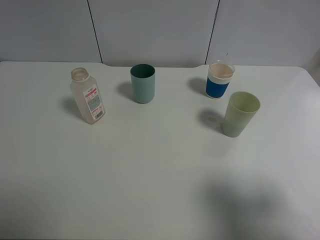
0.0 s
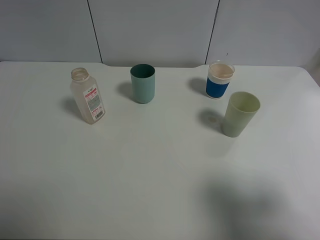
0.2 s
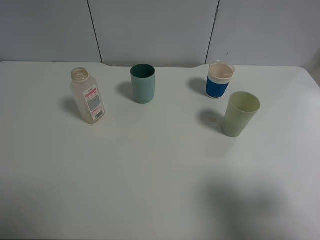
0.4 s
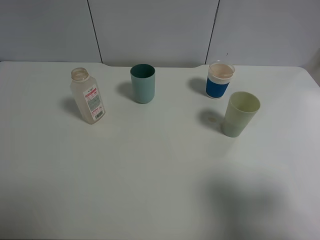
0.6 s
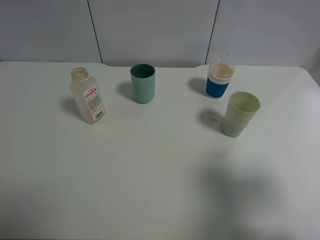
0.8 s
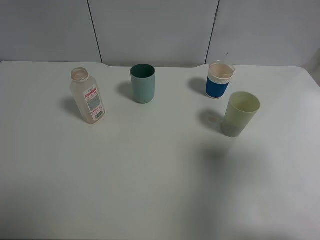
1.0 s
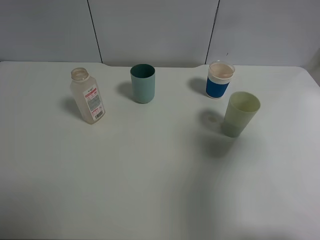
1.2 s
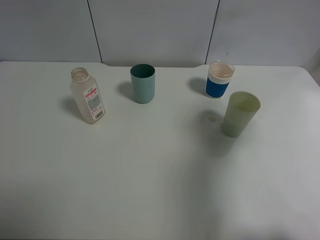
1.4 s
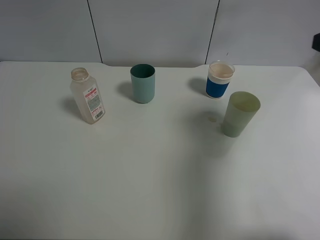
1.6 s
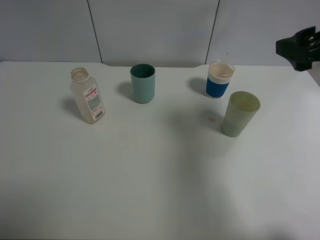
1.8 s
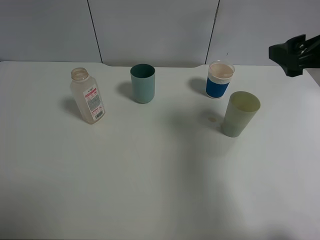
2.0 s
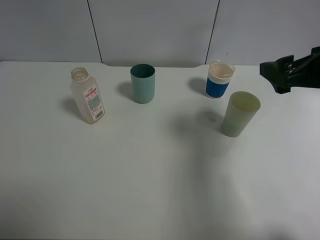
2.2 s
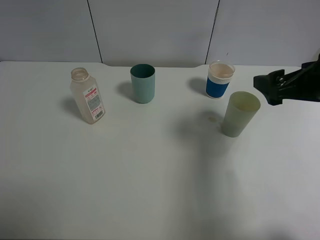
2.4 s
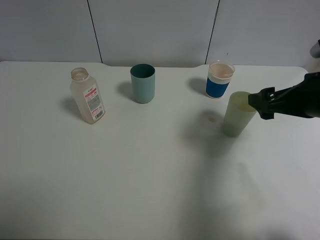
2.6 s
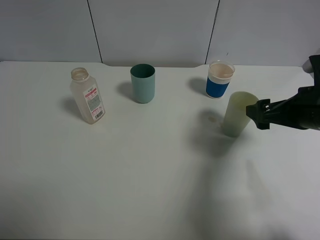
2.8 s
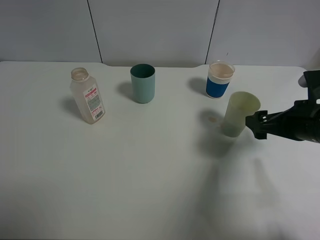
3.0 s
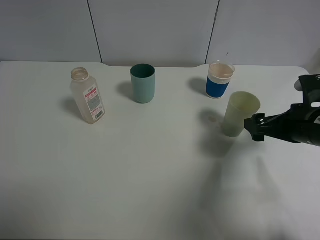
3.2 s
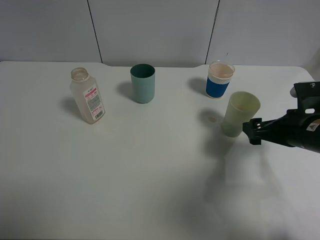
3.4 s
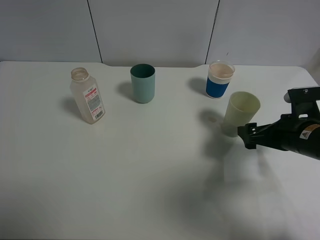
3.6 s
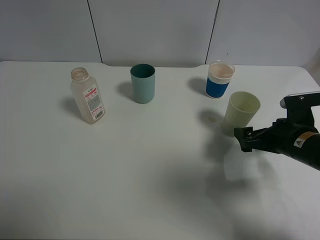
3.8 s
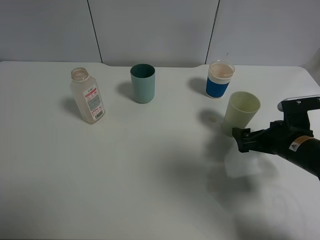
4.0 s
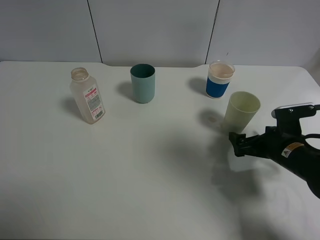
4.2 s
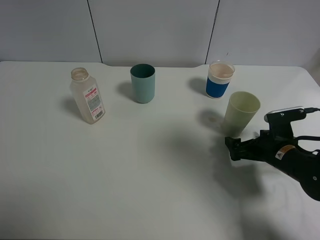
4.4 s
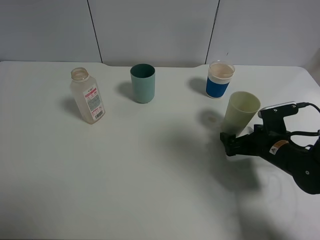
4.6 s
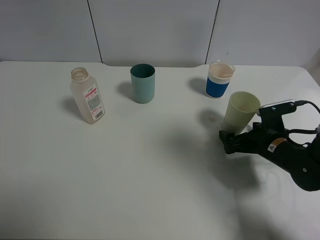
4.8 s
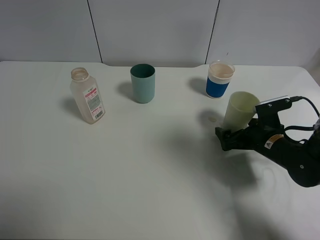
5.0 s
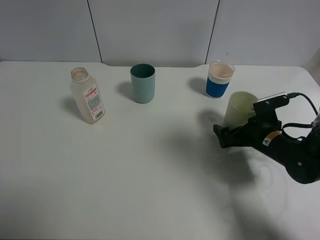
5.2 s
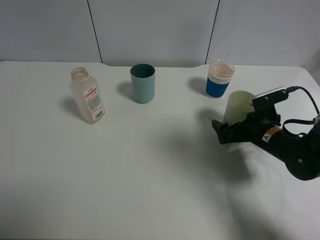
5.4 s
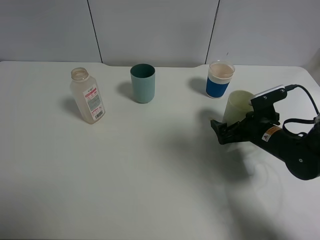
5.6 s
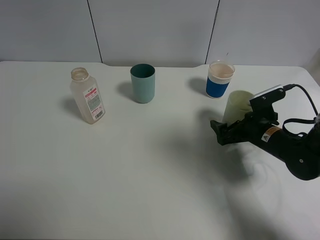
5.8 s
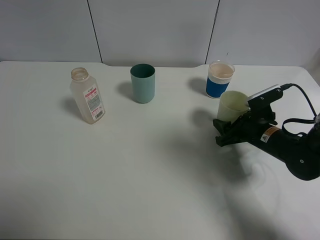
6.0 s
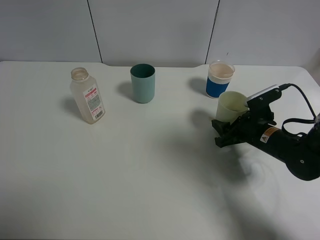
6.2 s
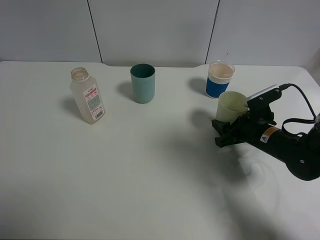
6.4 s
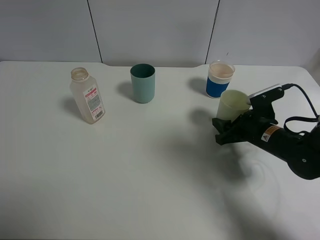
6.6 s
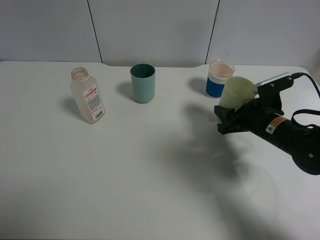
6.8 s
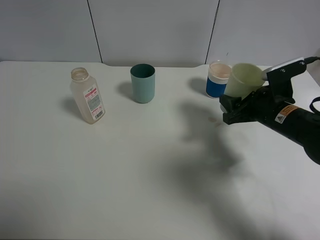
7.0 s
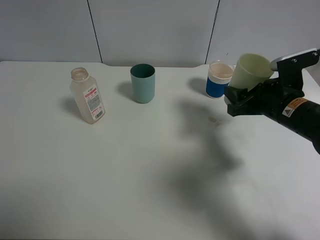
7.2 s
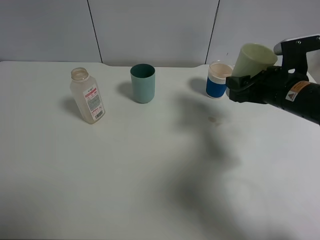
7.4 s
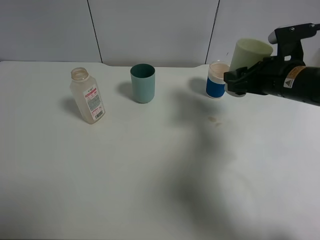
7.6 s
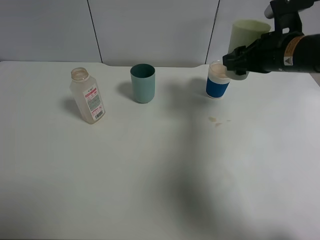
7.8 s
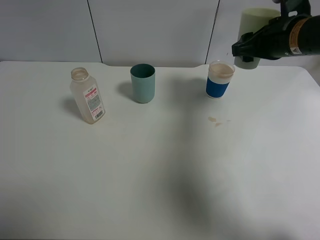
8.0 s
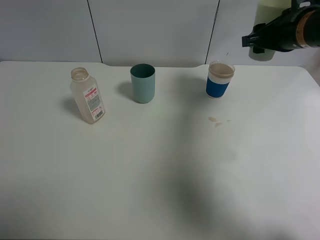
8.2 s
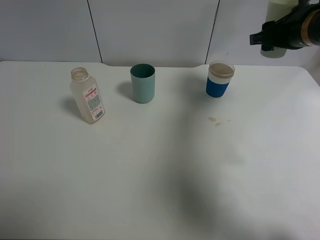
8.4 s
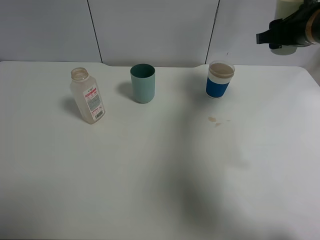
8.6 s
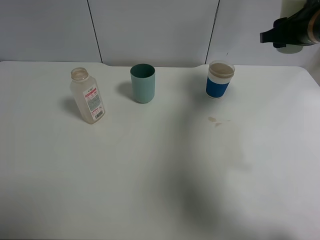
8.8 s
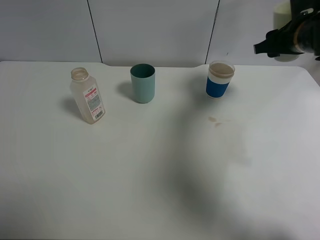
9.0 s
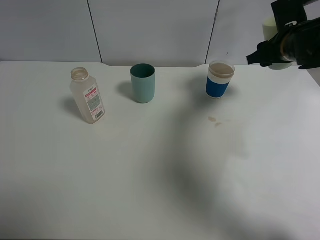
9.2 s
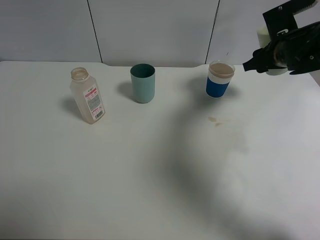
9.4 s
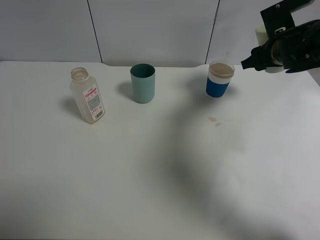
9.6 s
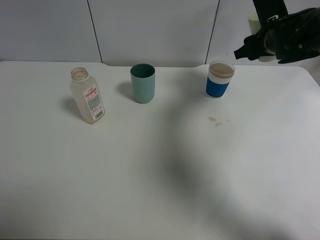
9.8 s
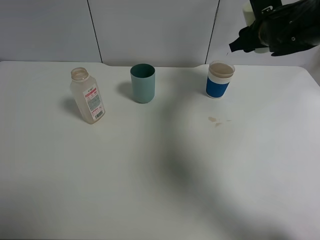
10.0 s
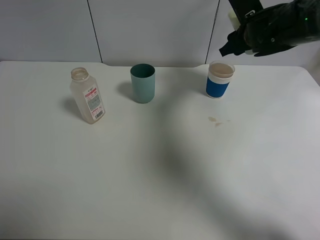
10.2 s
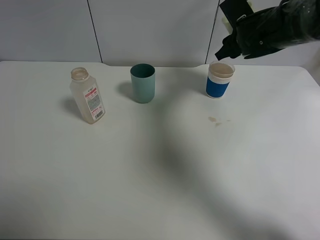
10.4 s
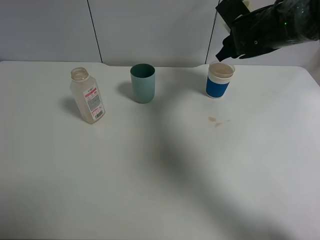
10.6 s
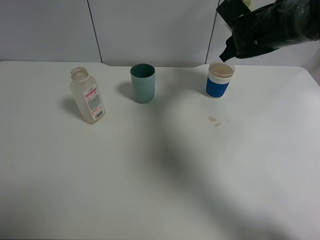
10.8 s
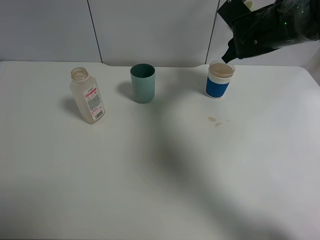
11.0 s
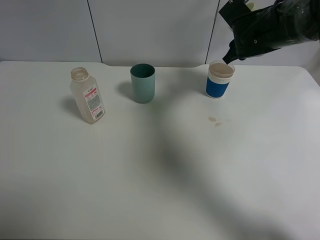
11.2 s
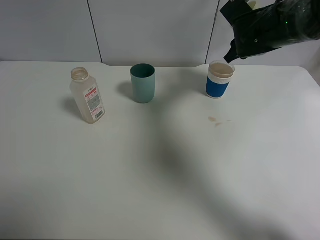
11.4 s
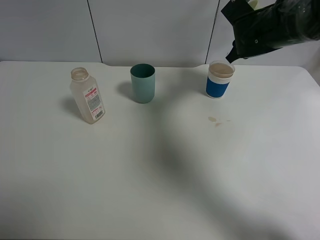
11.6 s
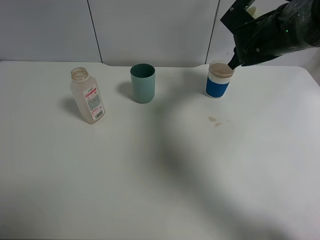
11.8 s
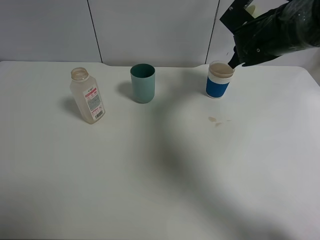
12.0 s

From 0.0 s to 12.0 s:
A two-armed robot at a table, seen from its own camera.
Task of the whole recording: use a clamp to hold the bottle of the drink, pour the beverage into a random cup, then clamp the cup containing the drink and pour the drink into another random cup.
Step, from 0.0 s to 7.0 s: Pick up the green plastic cup bottle with right gripper.
From 0.0 s to 1.6 s: The right gripper moves forward, about 20 cm.
From 1.6 s to 3.0 s: The right gripper heads downward, covering about 15 cm.
From 3.0 s to 4.4 s: The right gripper goes some 10 cm downward.
From 4.4 s to 6.0 s: The right gripper closes its fingers.
From 6.0 s to 7.6 s: The right gripper travels upward by approximately 15 cm.
From 7.6 s to 9.0 s: The right gripper travels forward and upward by roughly 10 cm.
From 9.0 s to 10.4 s: The right gripper travels to the left and forward by some 10 cm.
From 10.4 s to 12.0 s: The grippers make only small movements.

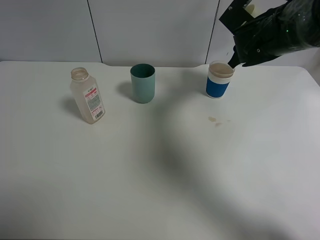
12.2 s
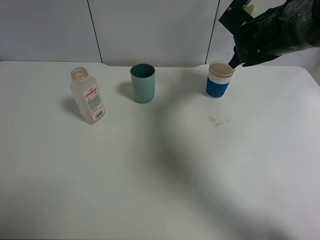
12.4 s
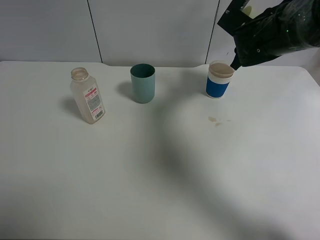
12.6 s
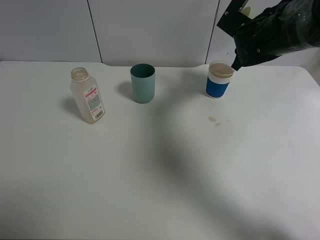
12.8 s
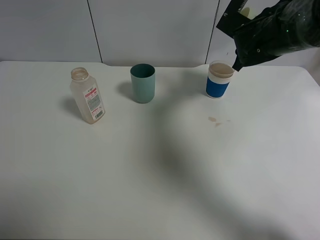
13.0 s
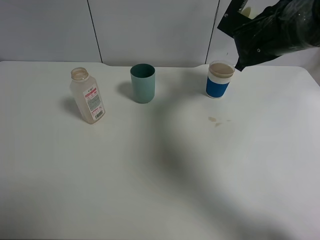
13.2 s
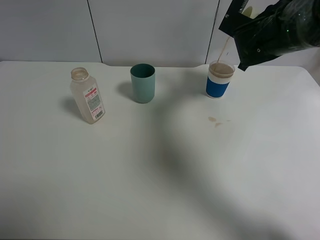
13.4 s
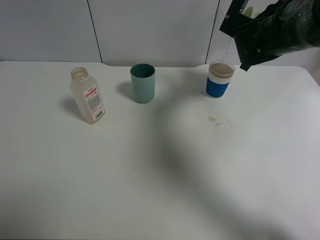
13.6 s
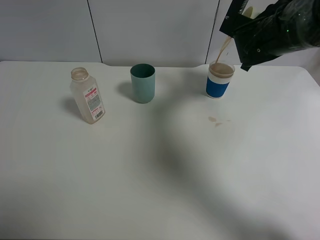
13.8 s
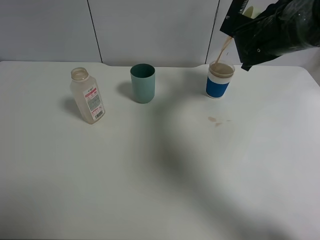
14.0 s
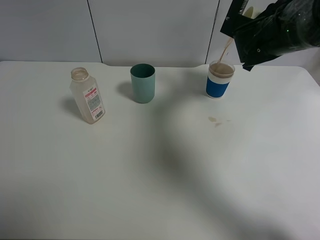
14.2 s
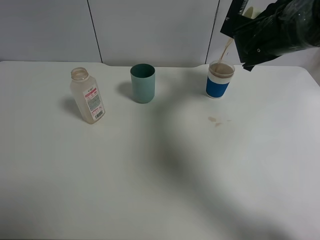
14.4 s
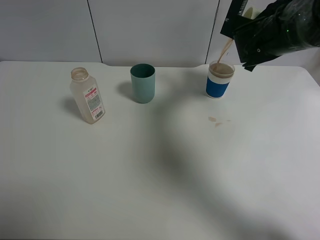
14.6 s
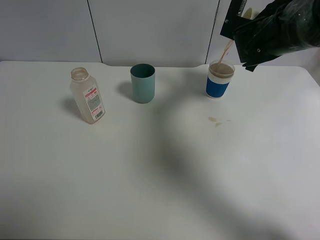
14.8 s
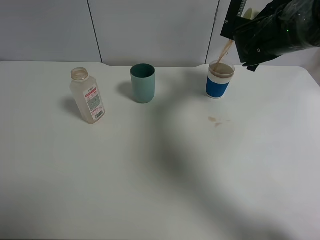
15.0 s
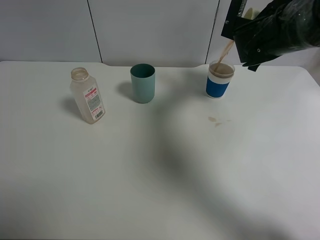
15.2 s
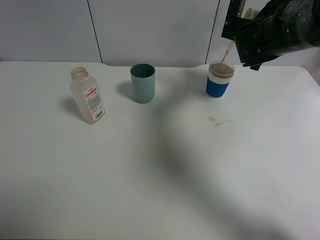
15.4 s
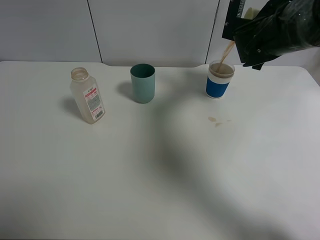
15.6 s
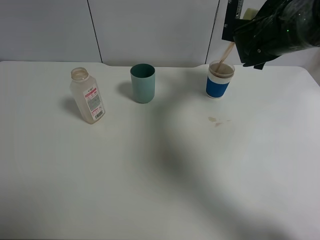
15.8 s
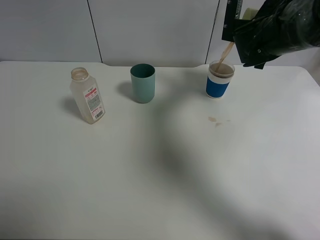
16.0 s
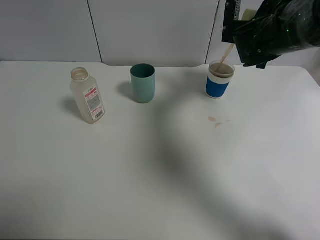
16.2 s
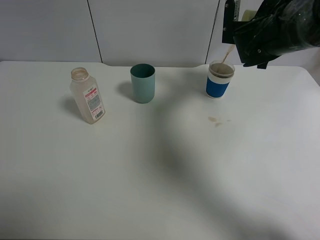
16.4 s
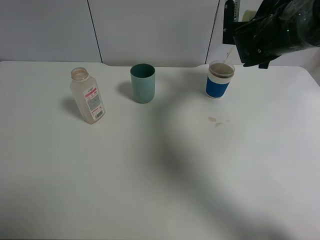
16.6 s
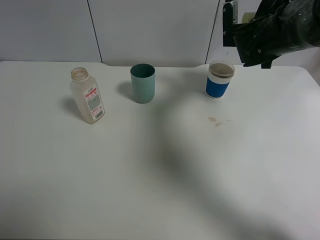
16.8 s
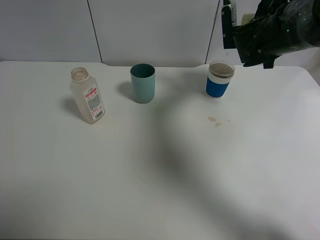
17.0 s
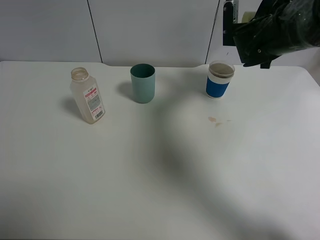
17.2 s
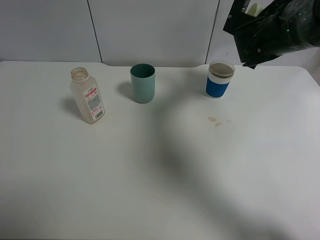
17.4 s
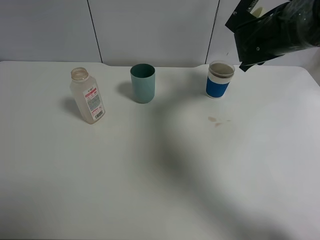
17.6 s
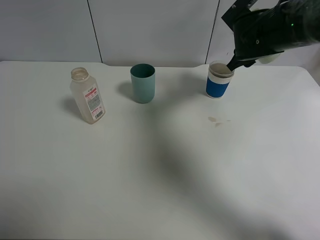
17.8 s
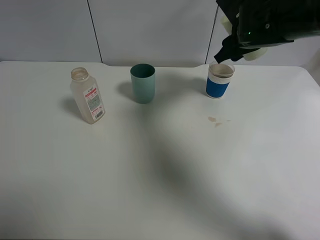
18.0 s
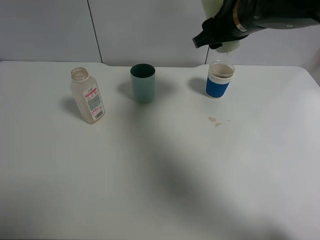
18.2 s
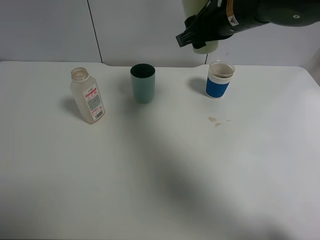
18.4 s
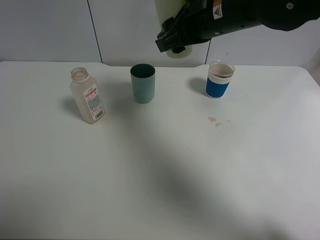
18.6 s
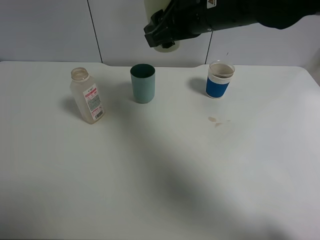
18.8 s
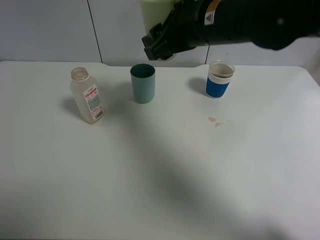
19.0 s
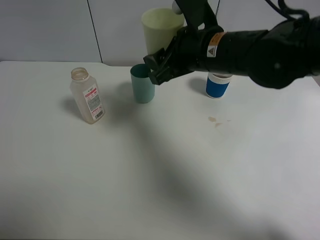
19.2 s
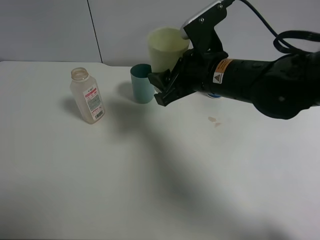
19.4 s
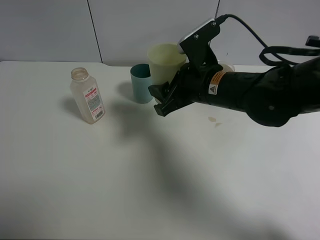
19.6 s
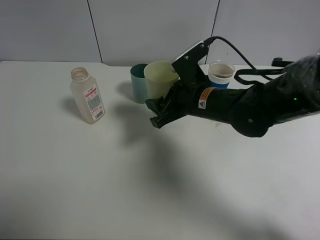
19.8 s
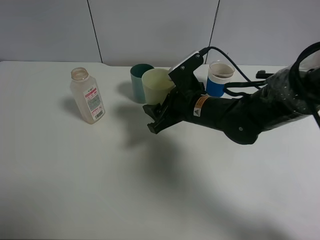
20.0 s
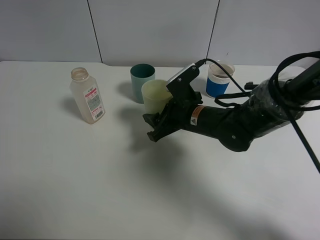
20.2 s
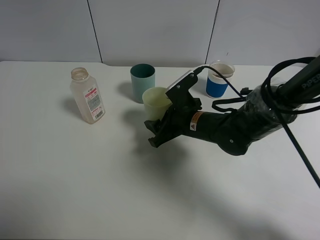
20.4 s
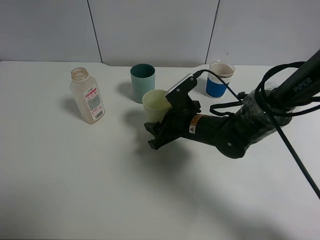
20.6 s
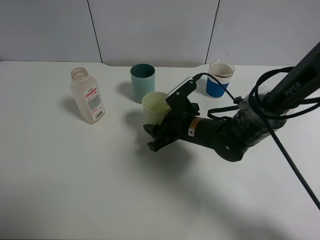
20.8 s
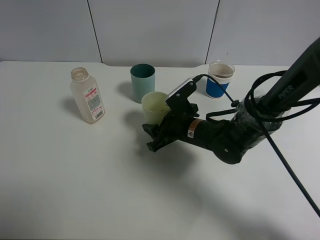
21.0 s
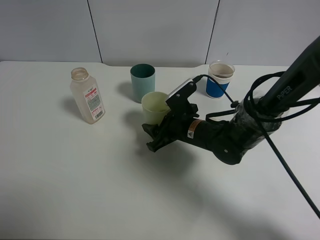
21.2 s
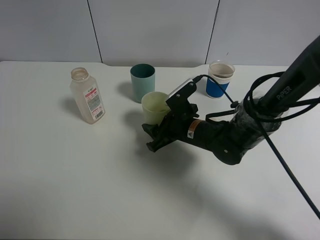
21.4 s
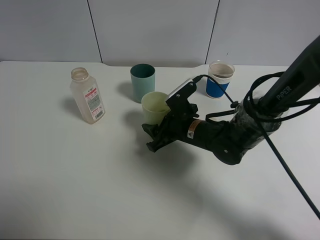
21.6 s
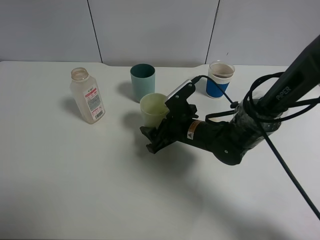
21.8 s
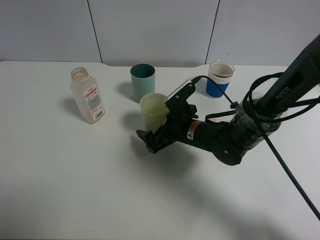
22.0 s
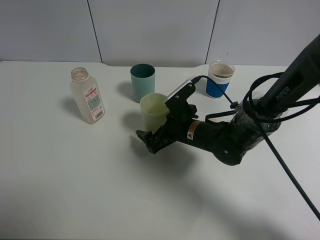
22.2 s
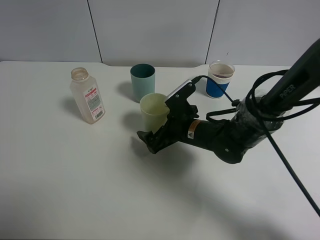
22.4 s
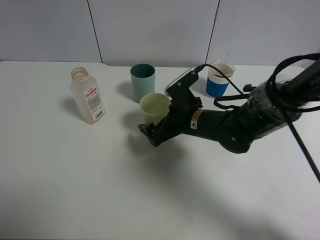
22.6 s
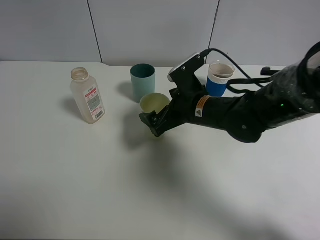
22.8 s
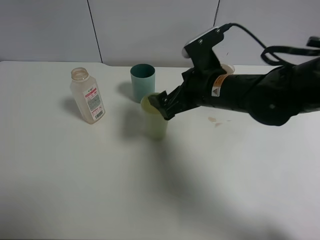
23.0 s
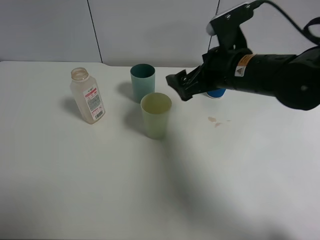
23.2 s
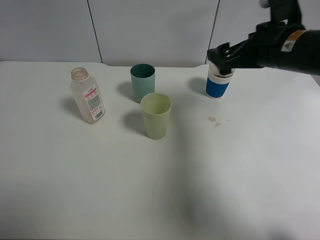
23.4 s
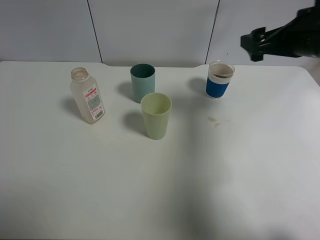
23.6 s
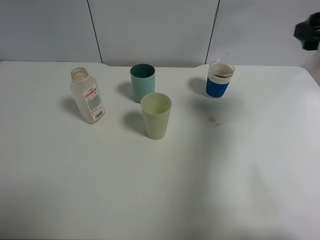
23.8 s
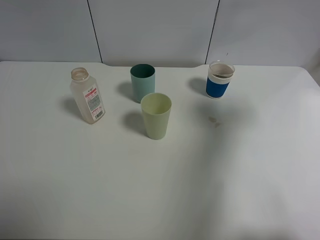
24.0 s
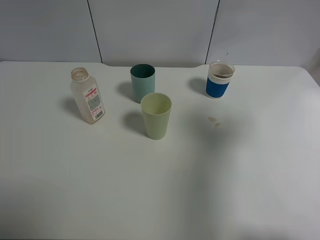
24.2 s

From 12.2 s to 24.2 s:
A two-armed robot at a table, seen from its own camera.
Task of the whole recording: use a clamp to hold the bottle of the drink, pour the beverage into a random cup, then clamp the cup containing the drink and pour the drink into another random cup.
Step, from 17.4 s to 22.6 s: Place the green plastic cup on the table with right gripper.
From 12.2 s to 13.8 s: The grippers make only small movements.
From 15.2 s to 16.6 s: The grippers make only small movements.
From 16.6 s to 18.2 s: The right gripper moves to the left, backward and upward, some 10 cm.
From 18.2 s to 19.8 s: The right gripper is displaced downward, backward and to the left by about 15 cm.
From 19.8 s to 21.2 s: The right gripper heads downward, covering approximately 10 cm.
From 21.2 s to 22.6 s: The right gripper opens up.
From 22.6 s to 24.2 s: The right gripper travels upward, to the right and backward by about 40 cm.
